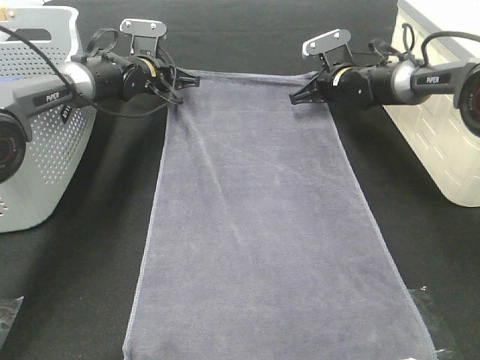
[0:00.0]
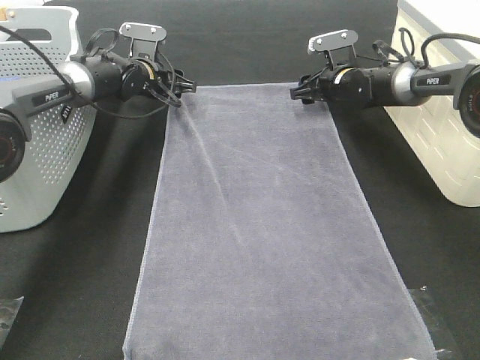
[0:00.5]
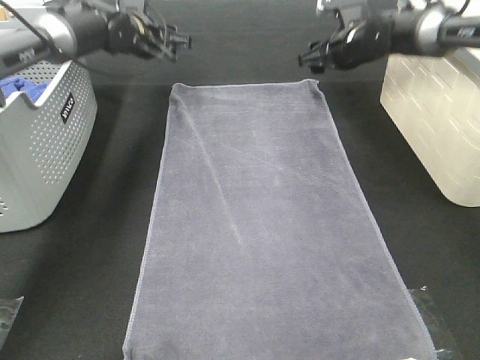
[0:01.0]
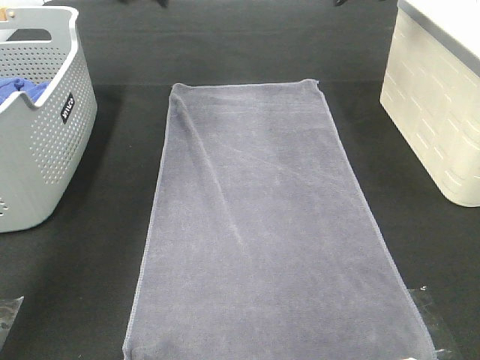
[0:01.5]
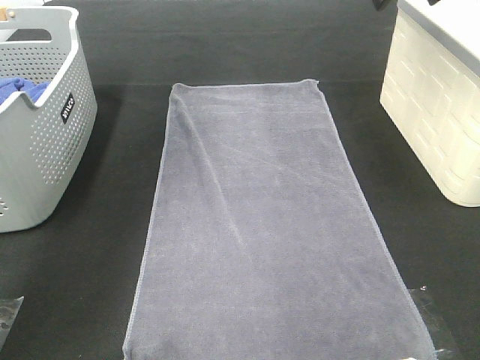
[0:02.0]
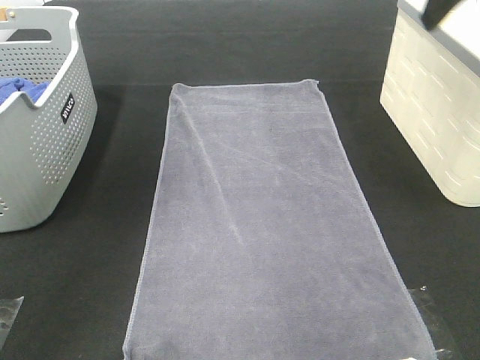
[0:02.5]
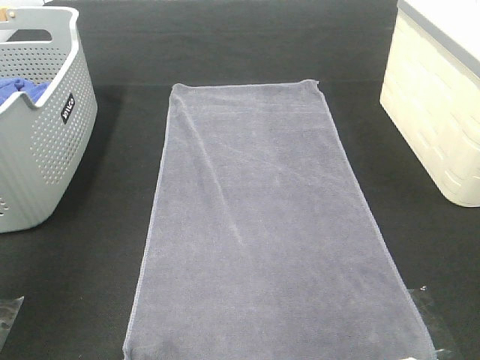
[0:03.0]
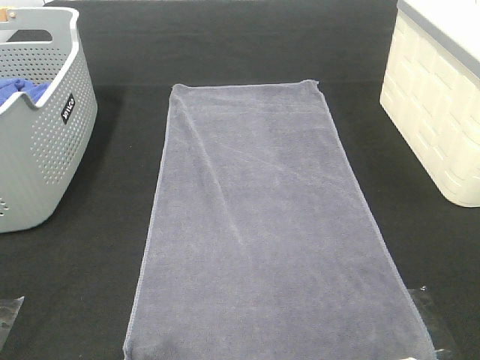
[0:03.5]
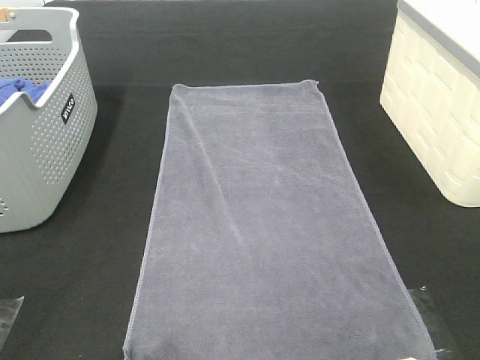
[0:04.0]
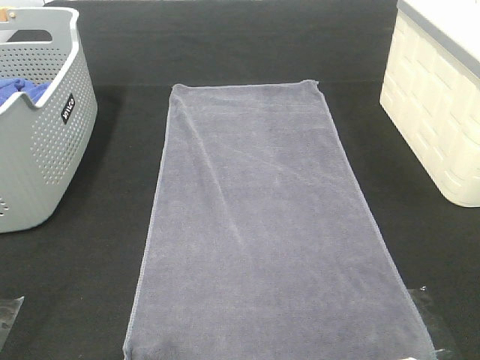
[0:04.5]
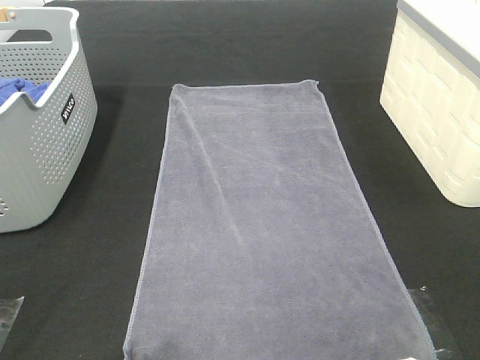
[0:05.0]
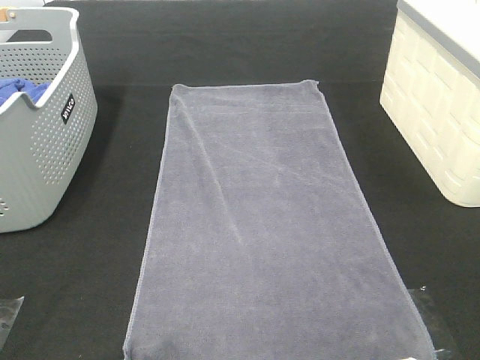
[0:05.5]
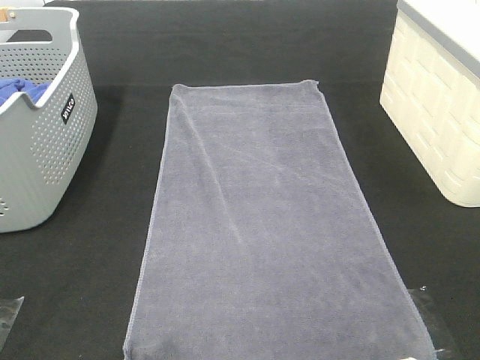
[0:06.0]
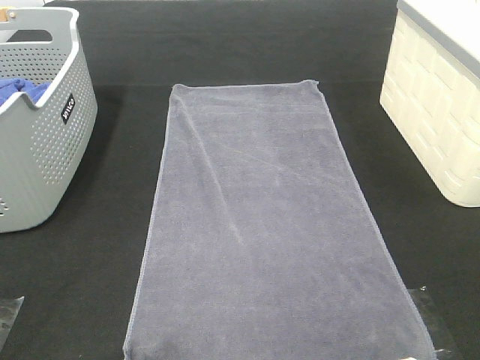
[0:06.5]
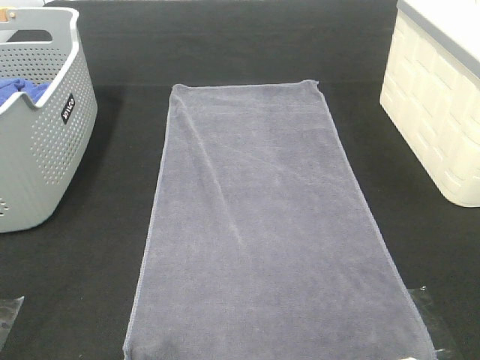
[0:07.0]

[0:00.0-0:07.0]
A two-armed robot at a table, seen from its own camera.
Task of the whole recording: Remove the towel and place it.
0:00.0 to 0:02.0: Both grippers travel together upward and backward, approximately 35 cm. The left gripper opens its fingers; the right gripper opens its fingers.
0:02.0 to 0:03.5: Both grippers travel together backward, roughly 40 cm.

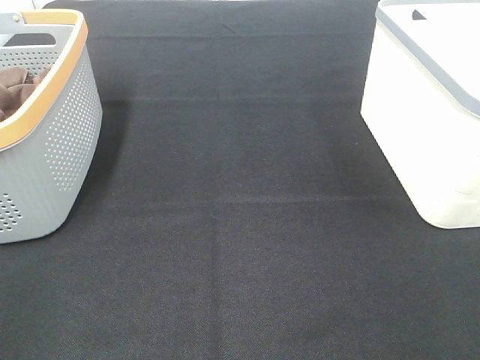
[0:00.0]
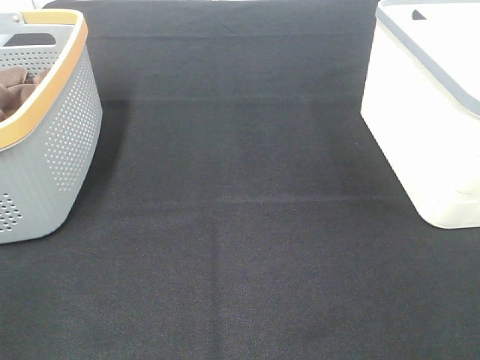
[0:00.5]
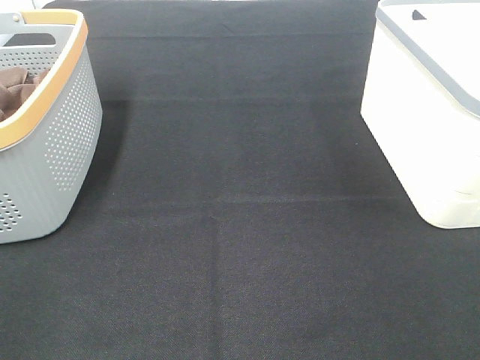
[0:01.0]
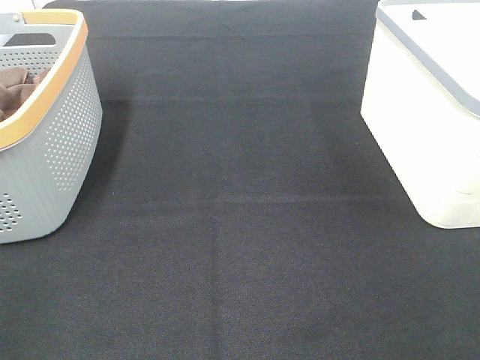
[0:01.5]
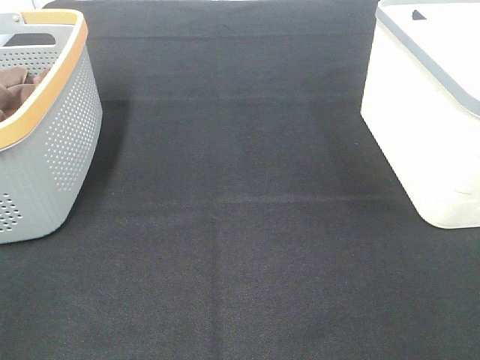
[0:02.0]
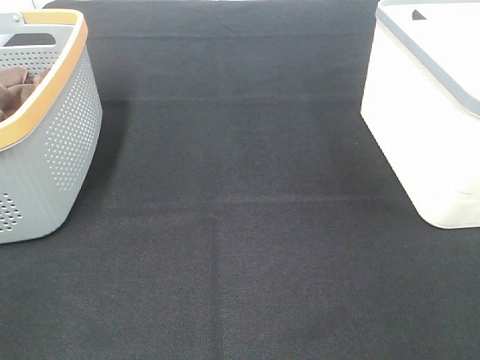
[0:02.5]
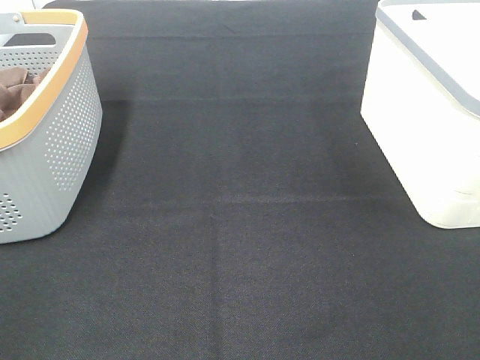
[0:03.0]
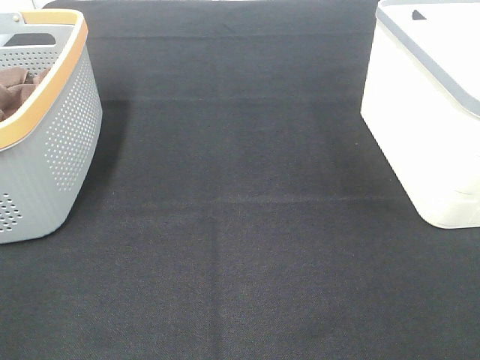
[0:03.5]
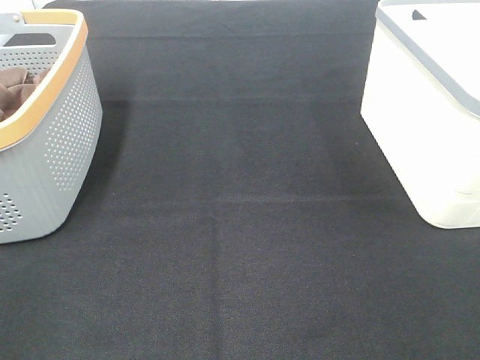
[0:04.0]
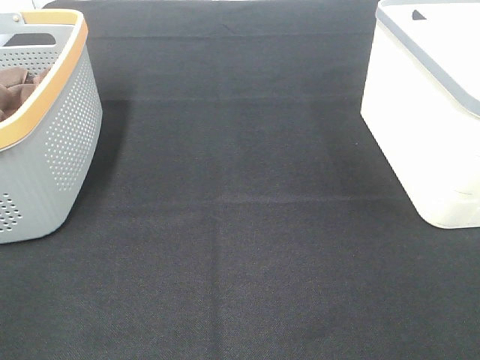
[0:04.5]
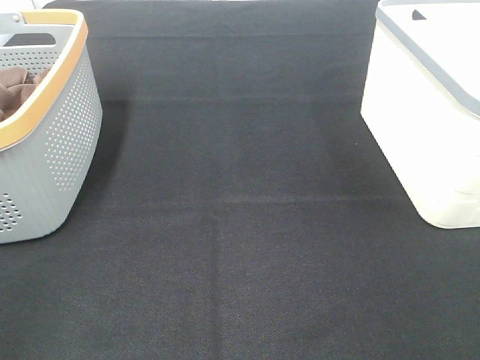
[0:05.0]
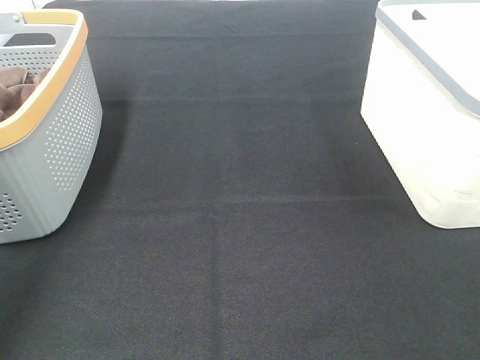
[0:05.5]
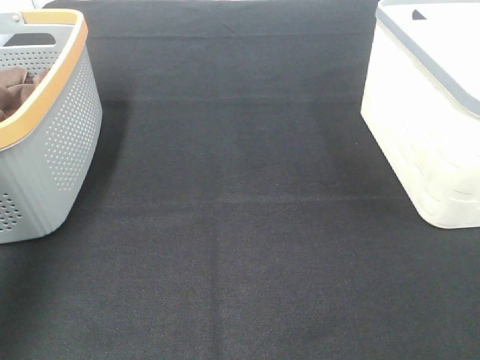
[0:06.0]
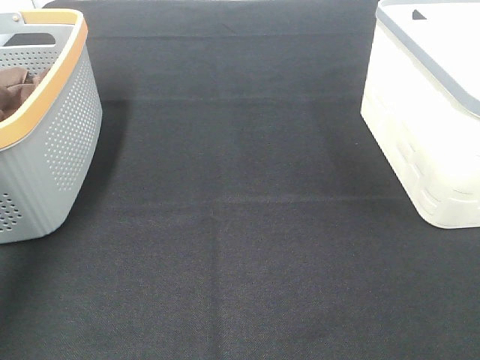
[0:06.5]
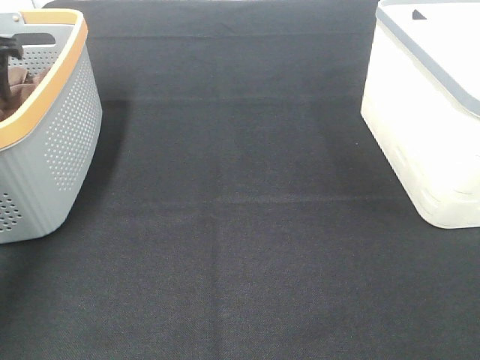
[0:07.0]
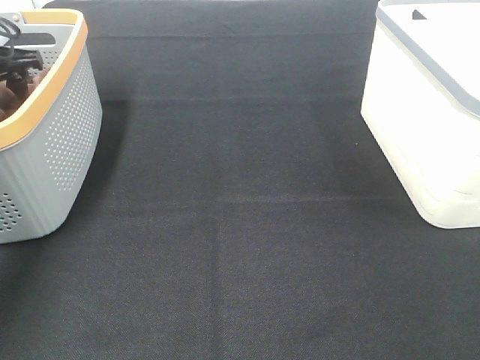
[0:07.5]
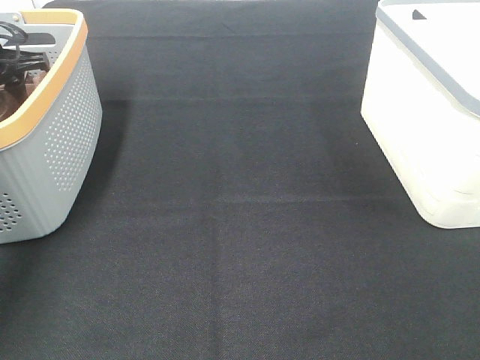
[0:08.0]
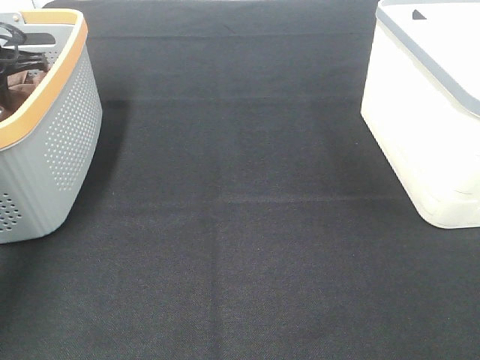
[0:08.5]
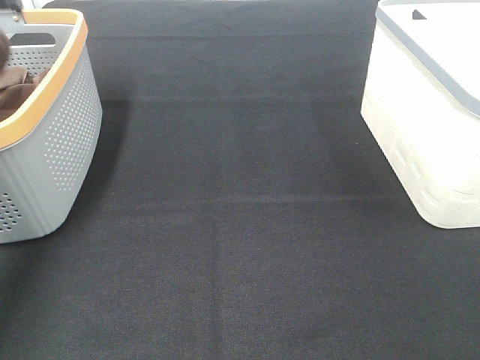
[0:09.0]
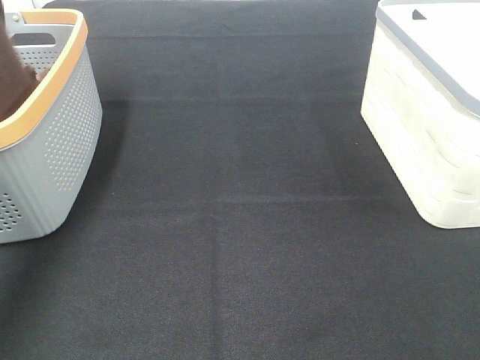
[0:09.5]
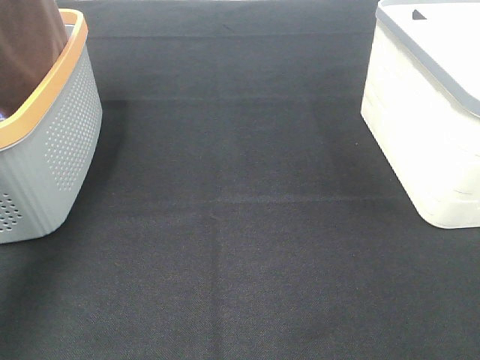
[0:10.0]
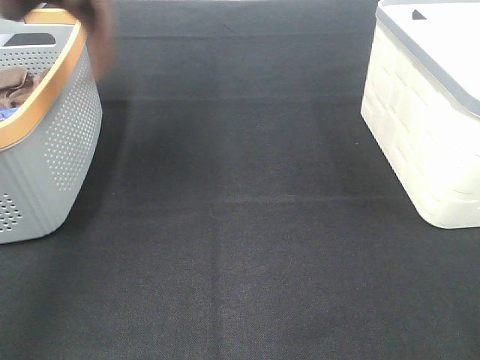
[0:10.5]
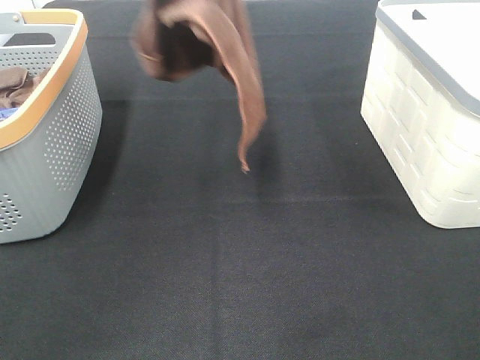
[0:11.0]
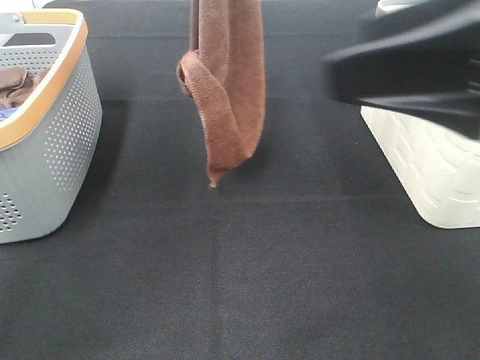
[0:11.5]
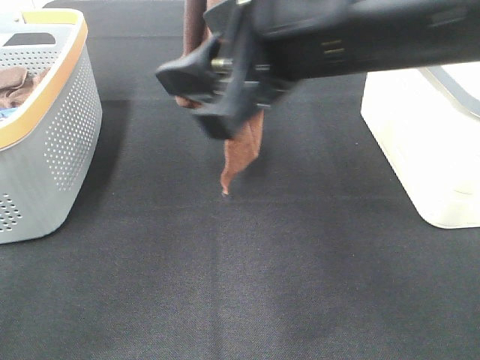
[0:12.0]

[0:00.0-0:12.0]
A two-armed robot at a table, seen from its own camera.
Task of the whole recording: Remove the towel and place it.
0:00.0 to 0:04.0: Both grippers stay put.
0:04.0 to 0:06.0: The left gripper travels forward by about 30 cm.
0:06.0 to 0:08.0: The left gripper is displaced forward and downward by approximately 25 cm, and closes.
0:08.0 to 0:10.0: The left gripper goes some 35 cm upward and backward, and closes.
0:10.0 to 0:12.0: The right gripper goes about 30 cm forward and to the left; the left gripper moves to the right, about 20 cm.

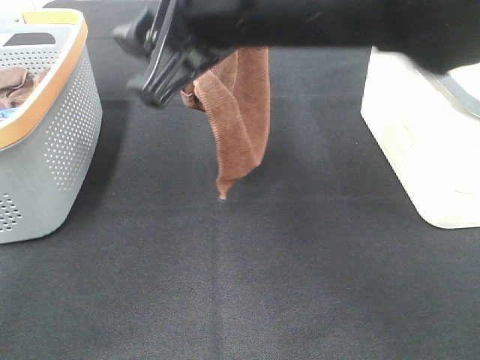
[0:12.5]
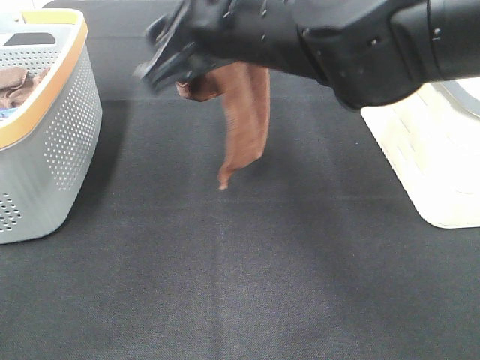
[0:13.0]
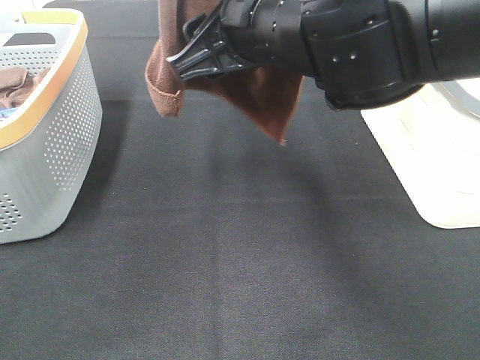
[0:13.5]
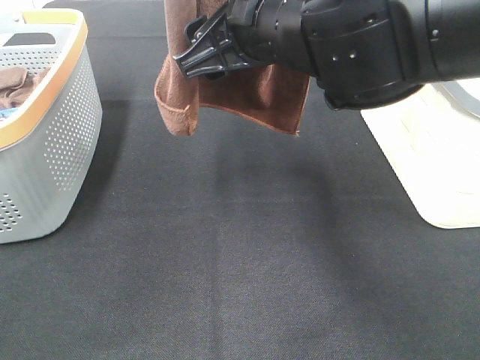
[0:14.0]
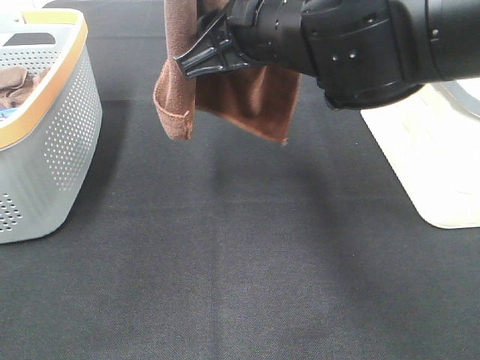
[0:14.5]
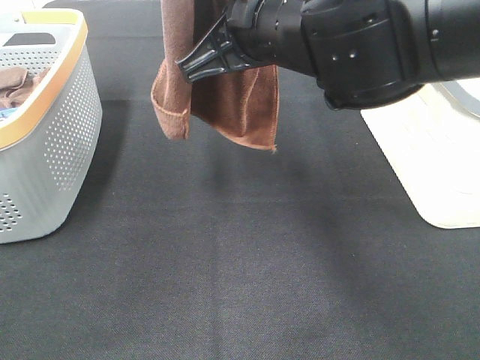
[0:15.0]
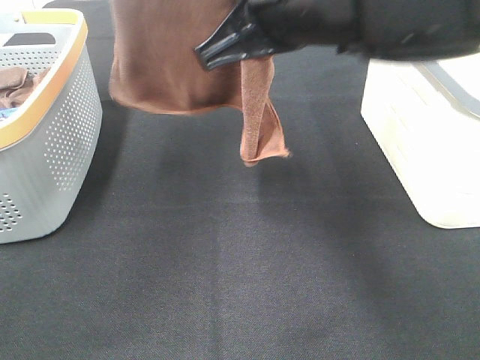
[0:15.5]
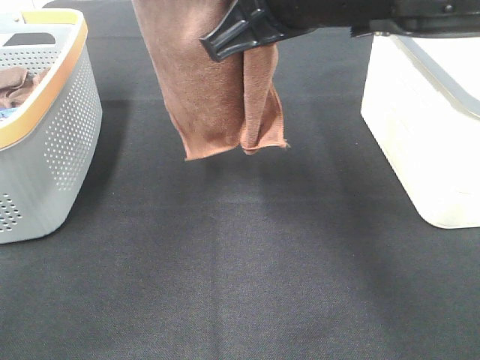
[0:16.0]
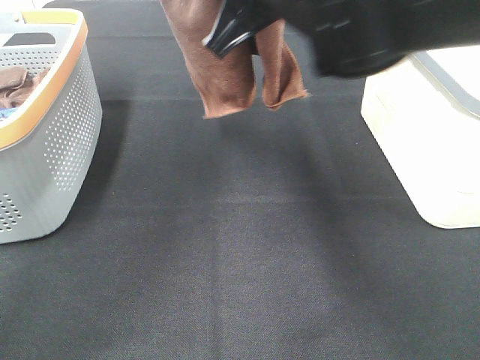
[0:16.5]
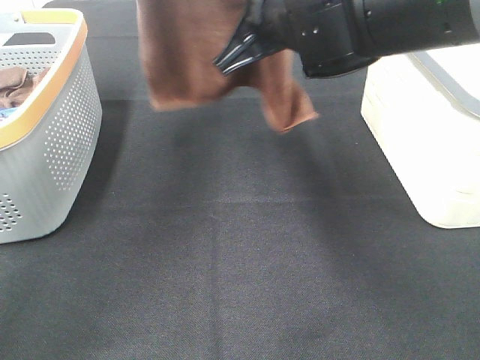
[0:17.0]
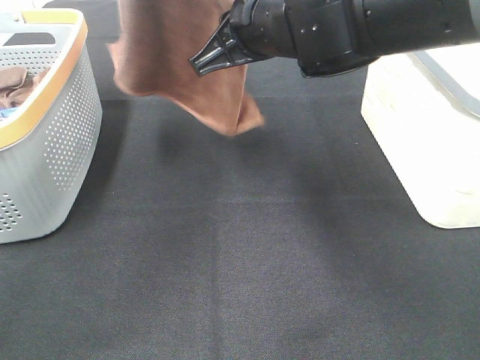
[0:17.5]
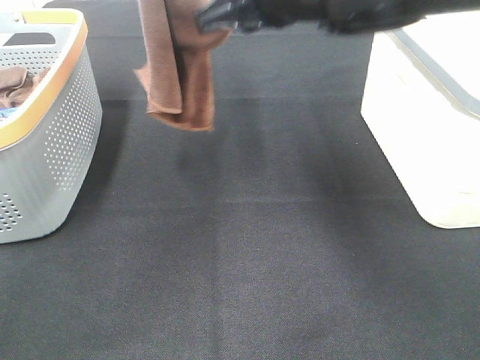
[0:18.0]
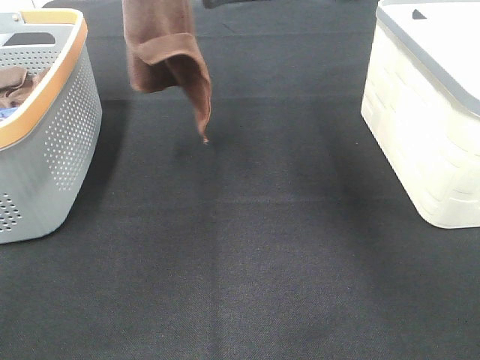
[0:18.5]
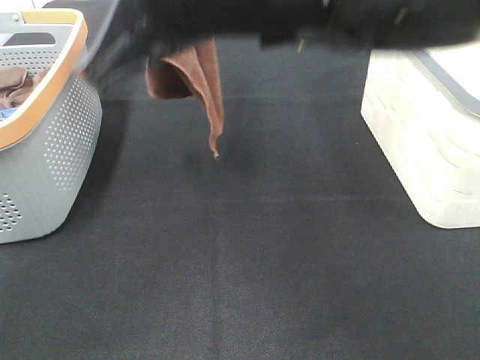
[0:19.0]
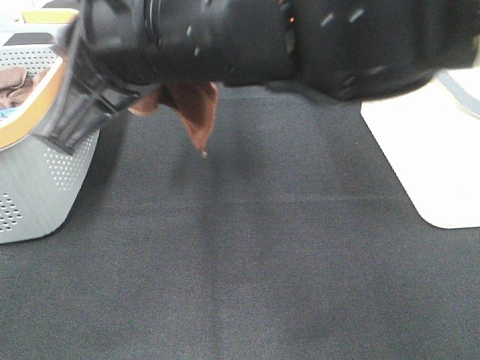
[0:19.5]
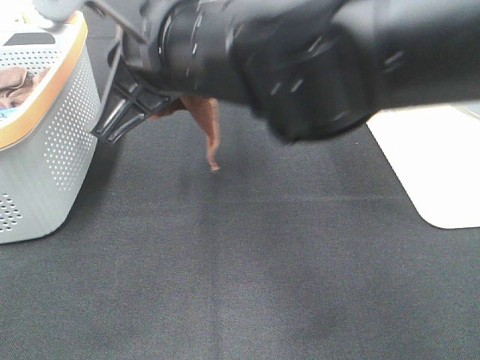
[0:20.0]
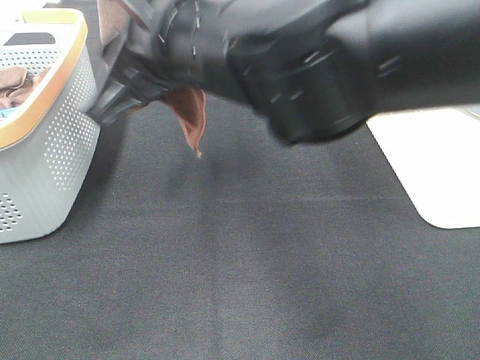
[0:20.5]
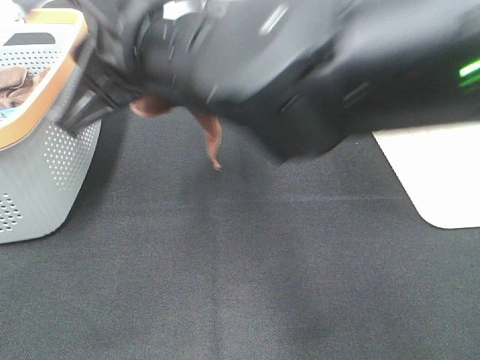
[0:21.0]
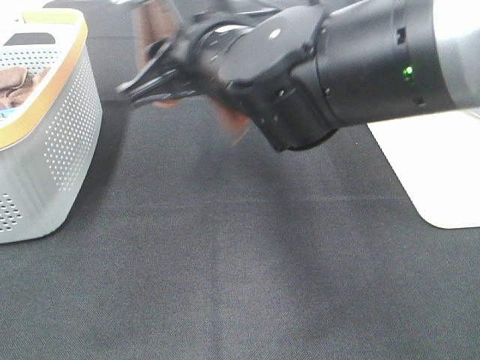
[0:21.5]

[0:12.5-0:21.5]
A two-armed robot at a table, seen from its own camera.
Task of the whole recording: Remove the towel and place it.
Step, 0:12.5 to 0:18.5: Right hand: grab a corner of the brown towel and straighten it.
0:12.5 to 0:14.5: The left gripper changes place by some 5 cm.
0:14.5 to 0:17.0: The right gripper moves forward, approximately 5 cm, and closes its fingers. Meanwhile the left gripper heads forward and downward, covering roughly 10 cm.
0:17.0 to 0:19.5: The right gripper moves backward and to the left, roughly 15 cm. The left gripper heads backward and upward, covering roughly 10 cm.
0:19.5 to 0:21.5: The right gripper heads forward and downward, covering some 10 cm, and opens up.
